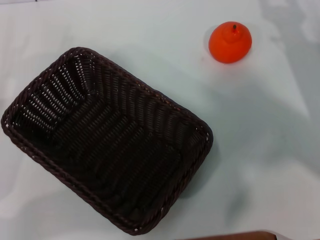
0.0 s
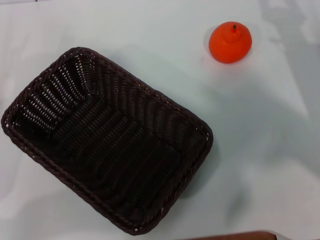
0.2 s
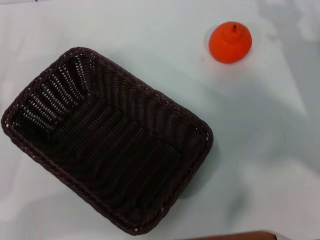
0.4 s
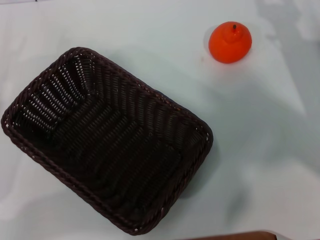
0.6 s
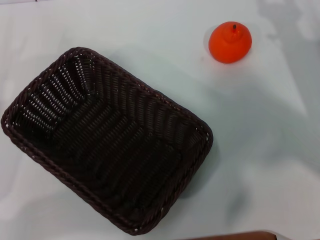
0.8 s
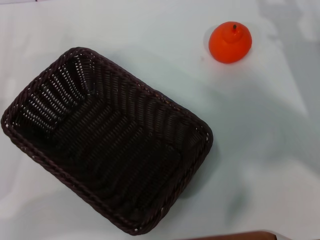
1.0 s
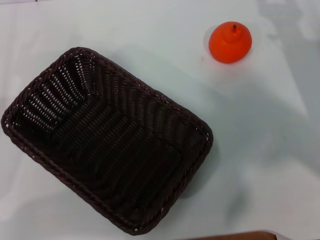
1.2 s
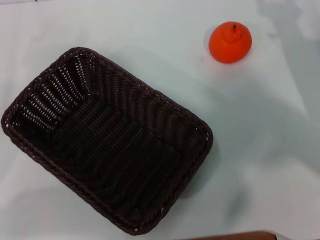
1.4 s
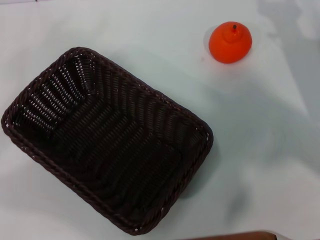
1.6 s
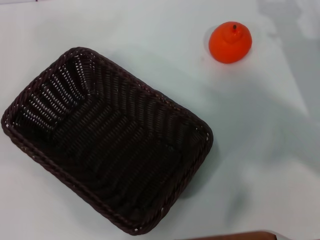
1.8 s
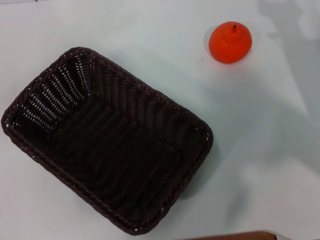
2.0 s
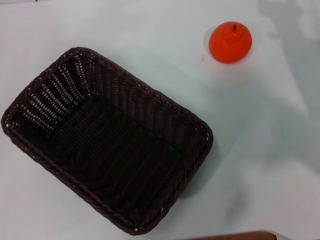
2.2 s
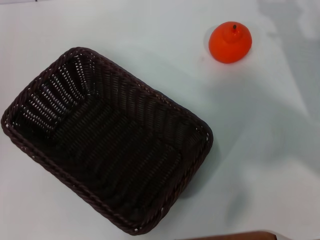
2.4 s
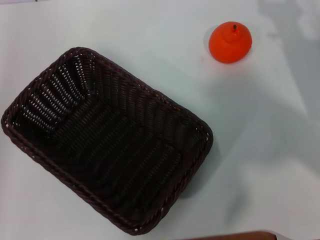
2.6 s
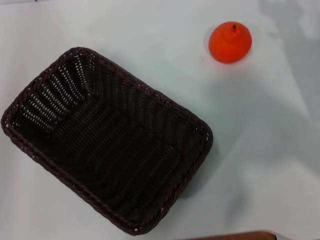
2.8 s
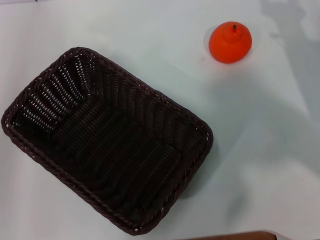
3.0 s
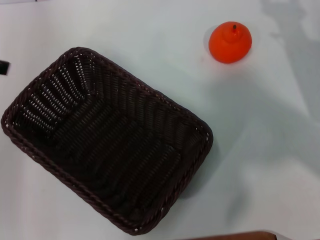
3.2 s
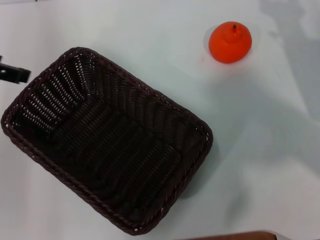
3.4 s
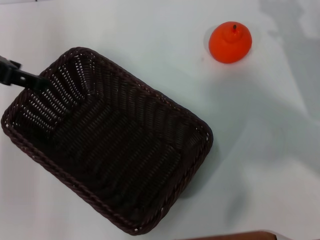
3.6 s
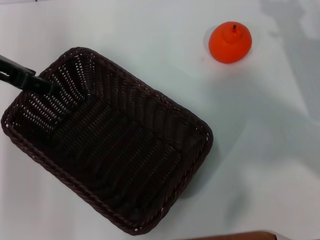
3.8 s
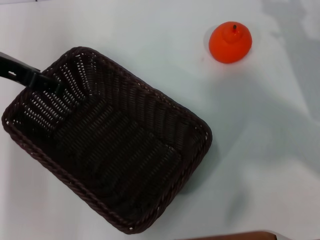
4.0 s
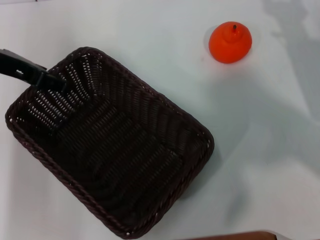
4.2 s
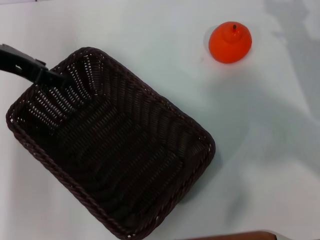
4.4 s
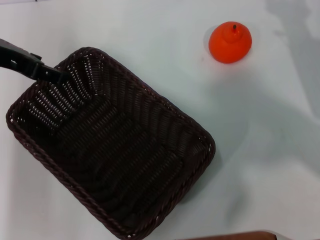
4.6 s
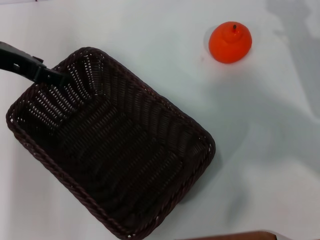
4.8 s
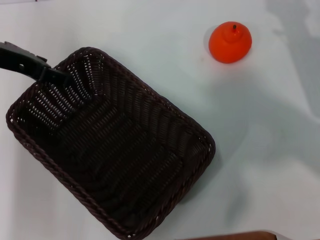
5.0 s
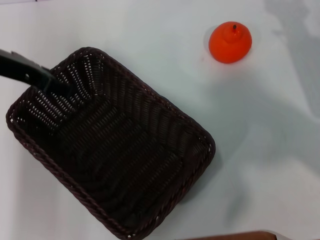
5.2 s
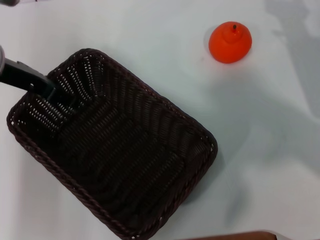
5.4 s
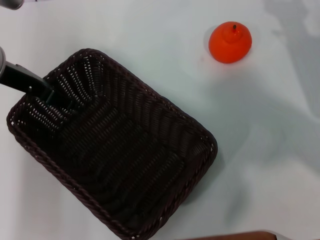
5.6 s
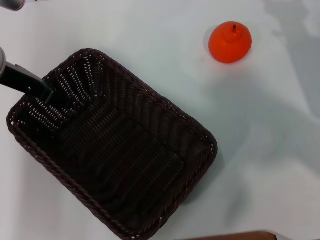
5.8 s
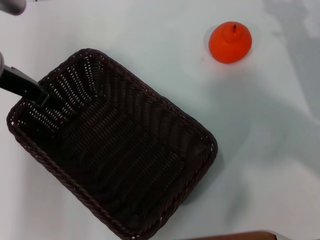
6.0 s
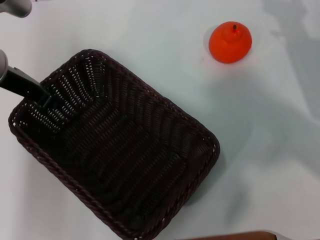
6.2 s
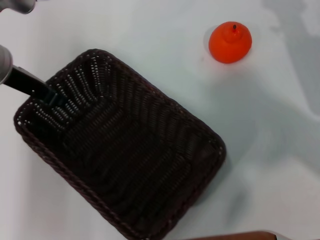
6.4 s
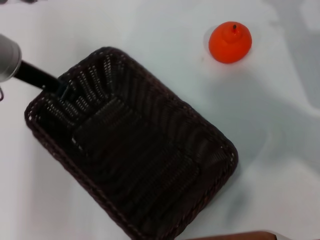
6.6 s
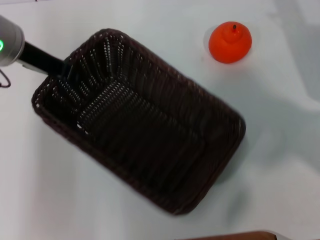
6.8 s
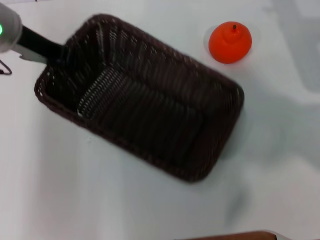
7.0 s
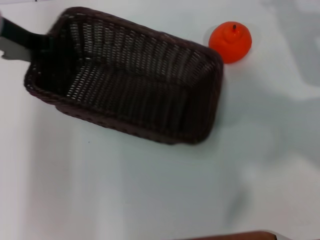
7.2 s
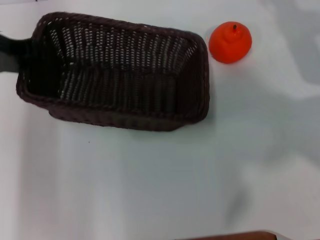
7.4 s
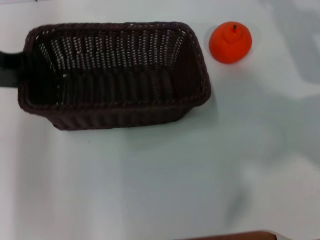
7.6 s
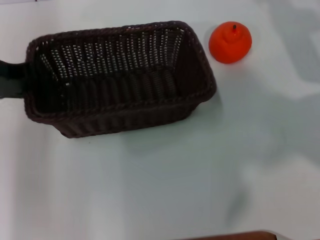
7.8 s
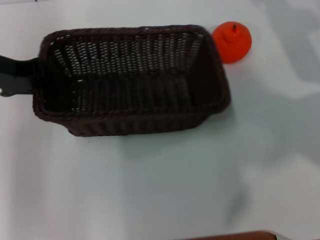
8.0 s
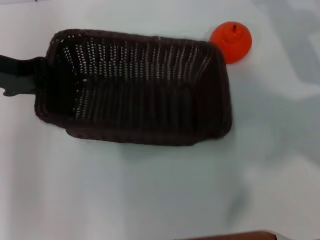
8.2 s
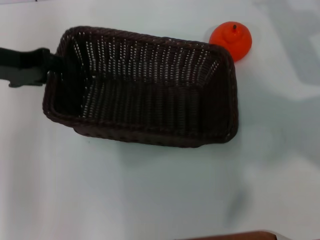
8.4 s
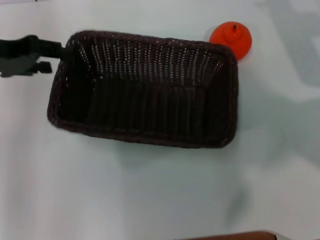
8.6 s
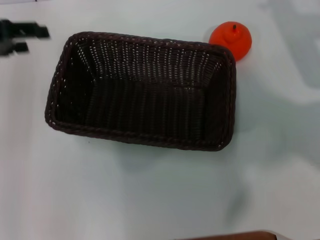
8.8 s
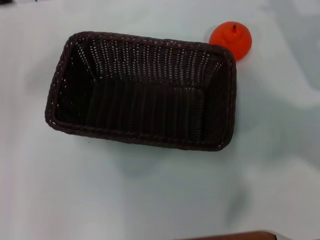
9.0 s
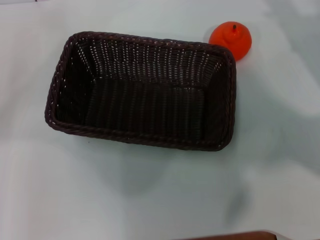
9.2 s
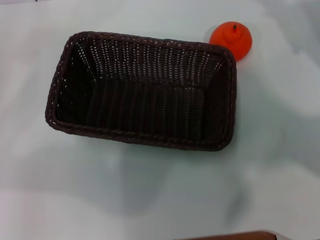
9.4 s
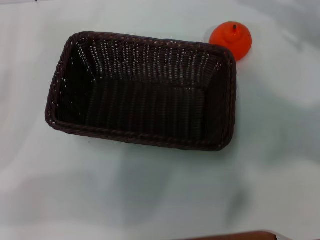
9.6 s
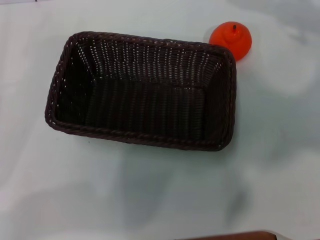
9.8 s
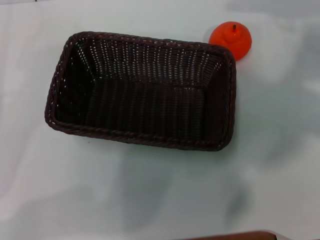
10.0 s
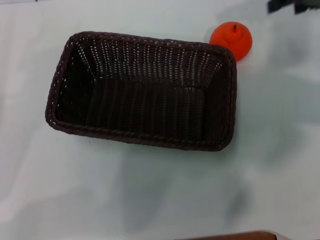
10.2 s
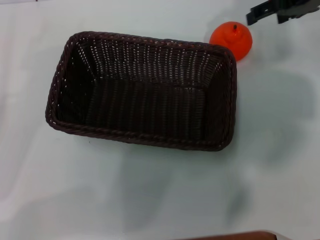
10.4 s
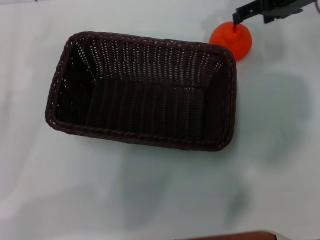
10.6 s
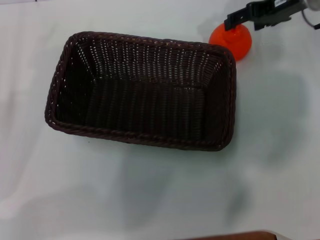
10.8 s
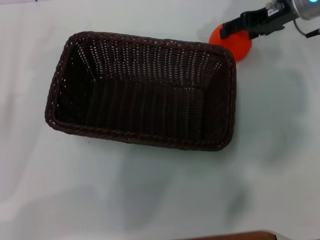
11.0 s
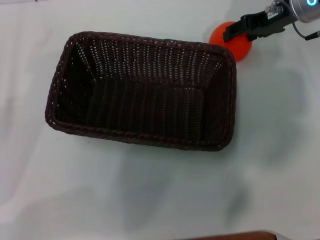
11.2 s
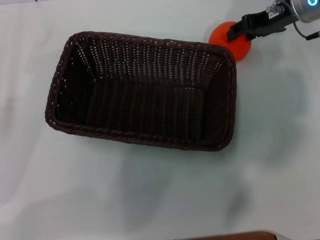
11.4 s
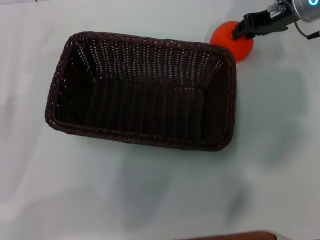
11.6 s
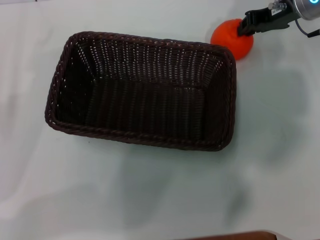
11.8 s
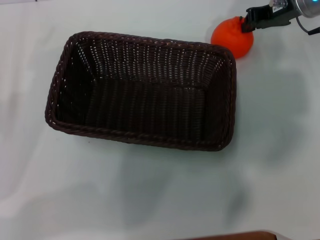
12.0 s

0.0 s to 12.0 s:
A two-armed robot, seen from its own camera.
Task of the whole recording: the left gripper pick up the black basket and place it horizontally in the middle of the table, the right gripper pick up the orange and place it into the black basket.
Step, 0.0 to 6.8 s: Pick up the dark basket with the left gripper.
Step, 7.2 to 8.6 s: Place the dark basket in the center of view with the left gripper.
0.0 to 1.6 s: The left gripper shifts some 10 cm upward and to the left.
1.6 to 3.0 s: The left gripper heads upward, to the right and forward, covering some 20 cm.
3.0 to 4.4 s: The left gripper is displaced to the right and downward by some 10 cm.
4.4 to 6.0 s: There are only small adjustments of the grippers.
6.0 to 7.6 s: The right gripper travels upward by some 5 cm, while the left gripper closes up.
7.6 to 9.0 s: The left gripper moves to the left, some 10 cm, and opens.
9.0 to 10.4 s: The left gripper shifts roughly 15 cm downward and backward; the right gripper moves upward, forward and to the left, approximately 15 cm.
10.4 to 12.0 s: The right gripper moves downward, roughly 5 cm, and closes up.

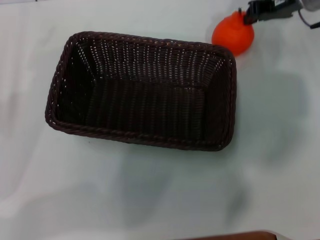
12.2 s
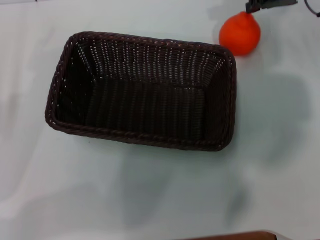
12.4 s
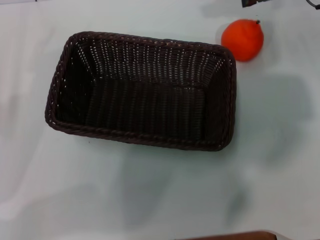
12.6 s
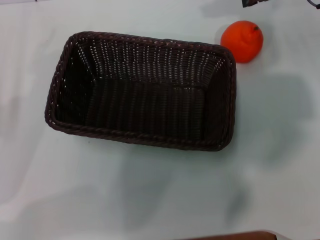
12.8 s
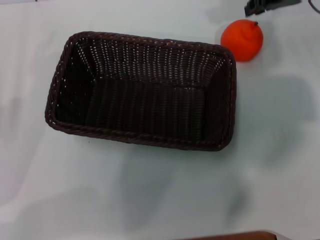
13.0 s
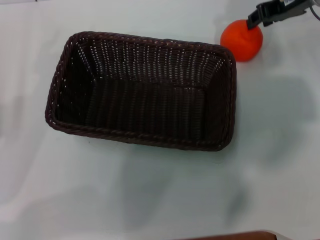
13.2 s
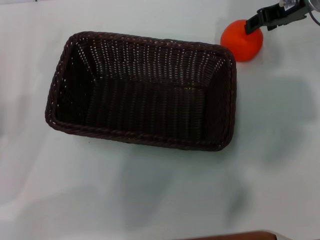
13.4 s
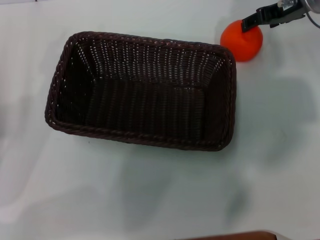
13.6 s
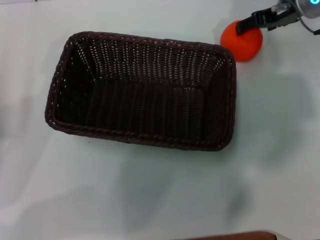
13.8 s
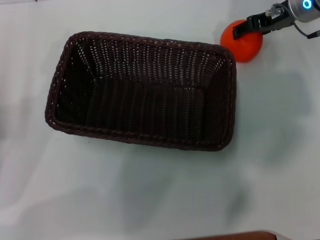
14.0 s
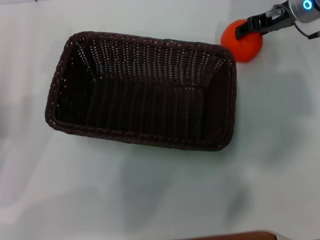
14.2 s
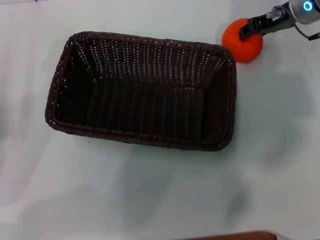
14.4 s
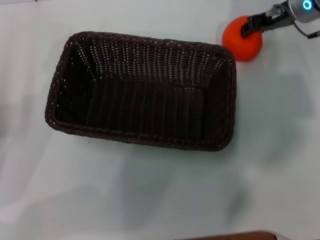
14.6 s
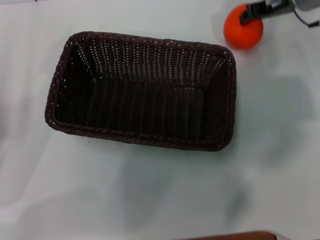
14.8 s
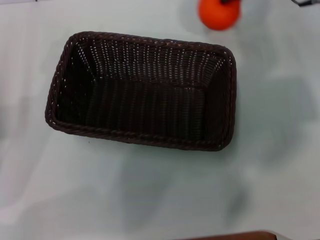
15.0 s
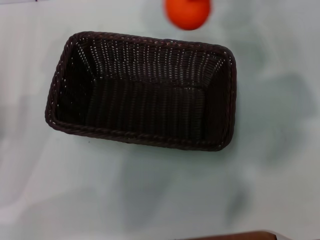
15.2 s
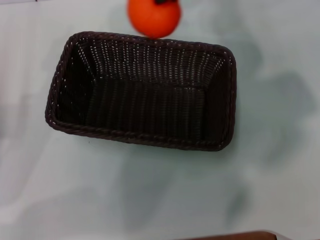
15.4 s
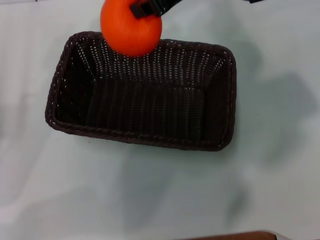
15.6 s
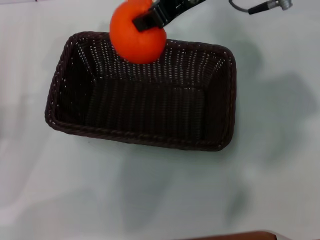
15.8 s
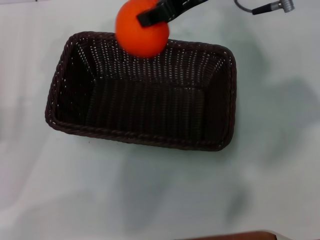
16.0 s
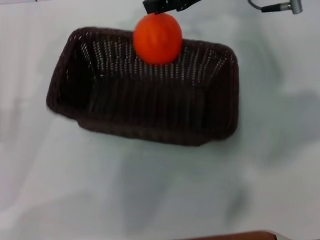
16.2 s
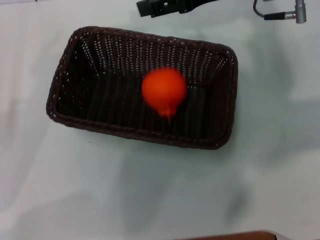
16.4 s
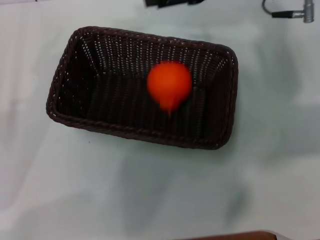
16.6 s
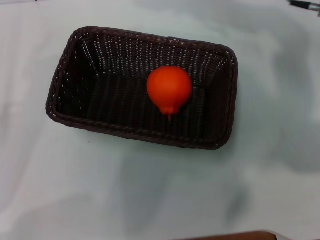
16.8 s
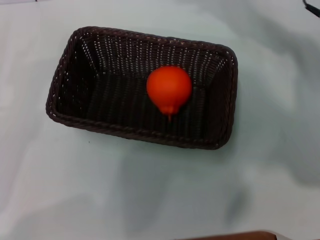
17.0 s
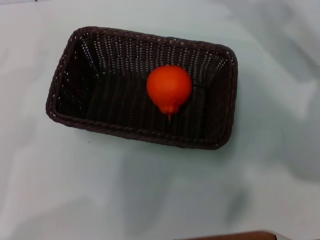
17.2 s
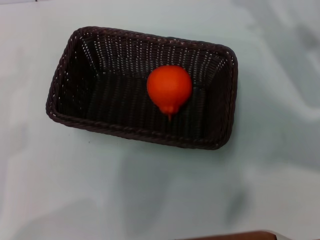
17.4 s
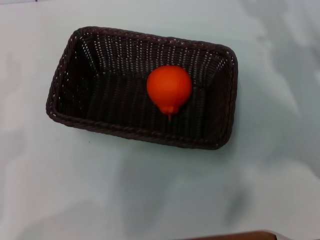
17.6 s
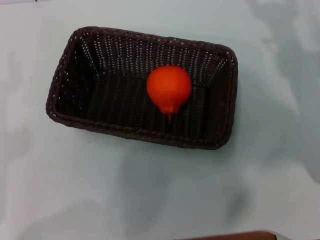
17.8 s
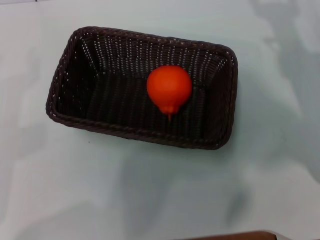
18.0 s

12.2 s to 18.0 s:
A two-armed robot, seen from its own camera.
Task of the whole recording: the left gripper pick up the black basket and place it horizontally in the middle of the table, the right gripper pick up the orange and place it into the black basket.
Step, 12.2 to 14.8 s: Pick up the orange with the right gripper.
Step, 15.0 to 16.4 s: Place the orange into the dark basket with the right gripper.
12.2 to 13.6 s: The right gripper opens.
13.6 to 15.0 s: The right gripper changes place by some 5 cm, and closes its fingers.
15.0 to 16.6 s: The right gripper shifts approximately 5 cm backward, reaches approximately 10 cm to the left, then returns, and opens up.
16.6 to 18.0 s: The right gripper travels downward, to the right and backward by approximately 20 cm.
